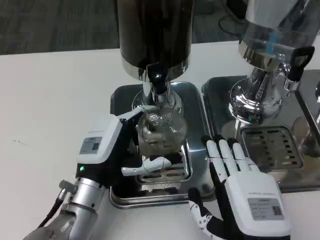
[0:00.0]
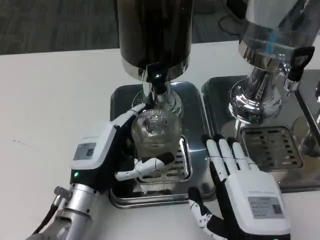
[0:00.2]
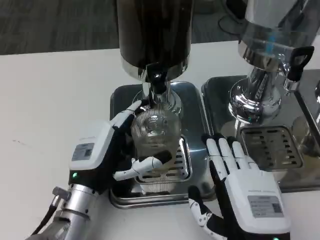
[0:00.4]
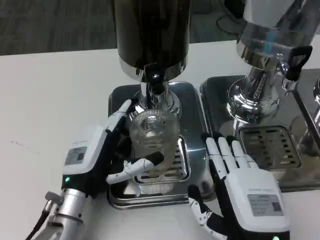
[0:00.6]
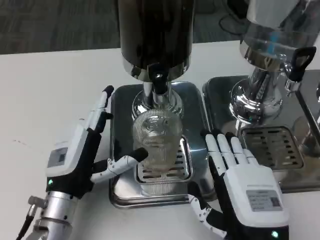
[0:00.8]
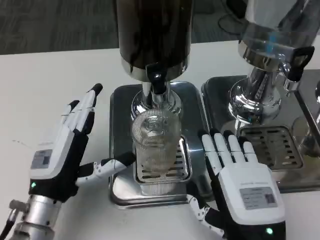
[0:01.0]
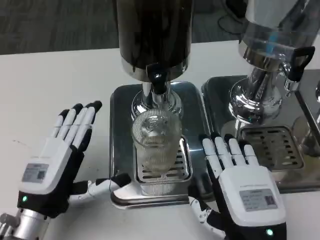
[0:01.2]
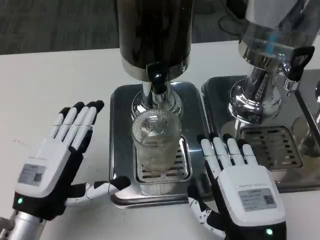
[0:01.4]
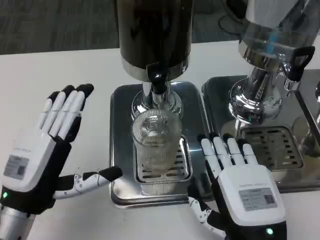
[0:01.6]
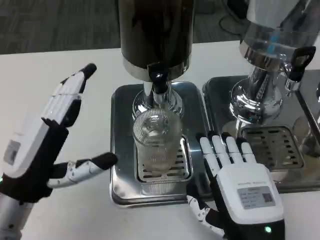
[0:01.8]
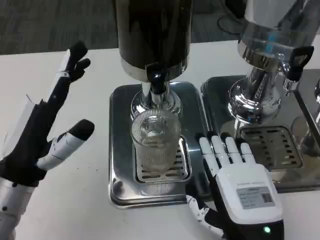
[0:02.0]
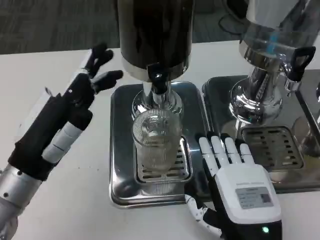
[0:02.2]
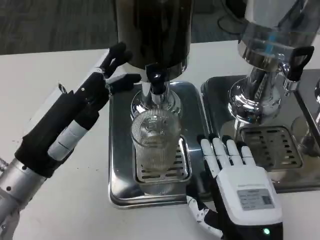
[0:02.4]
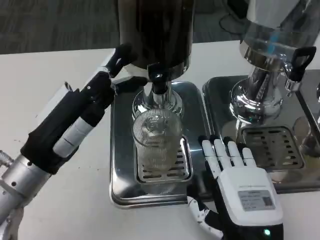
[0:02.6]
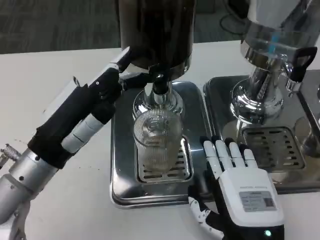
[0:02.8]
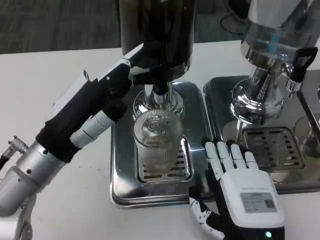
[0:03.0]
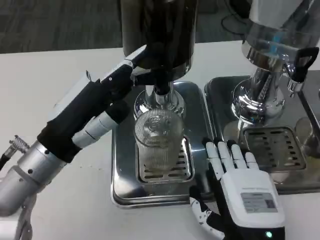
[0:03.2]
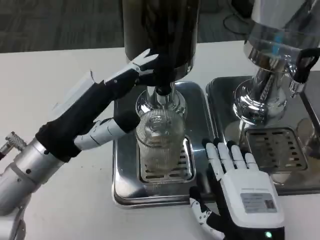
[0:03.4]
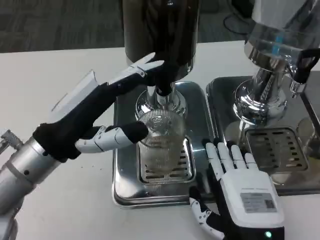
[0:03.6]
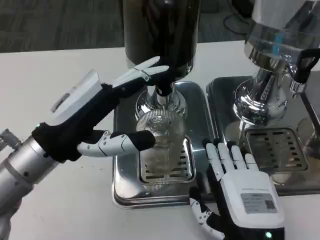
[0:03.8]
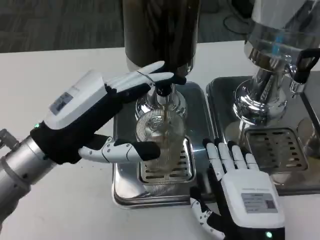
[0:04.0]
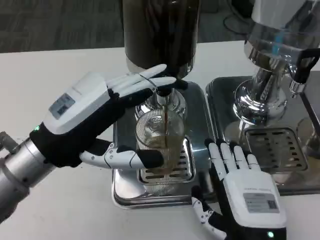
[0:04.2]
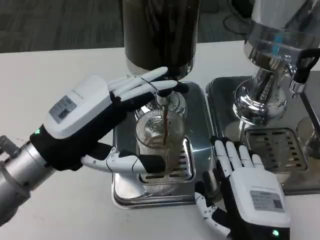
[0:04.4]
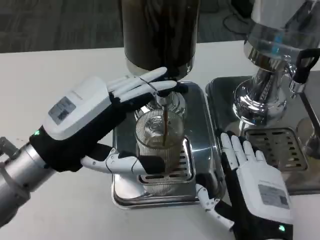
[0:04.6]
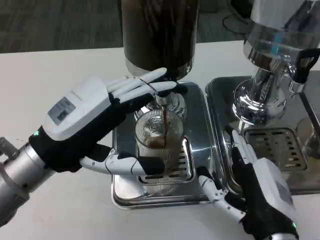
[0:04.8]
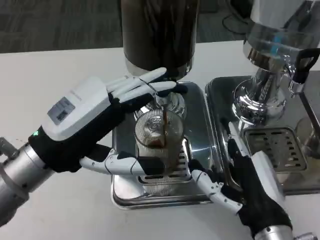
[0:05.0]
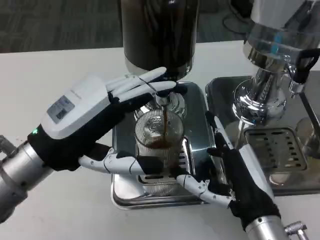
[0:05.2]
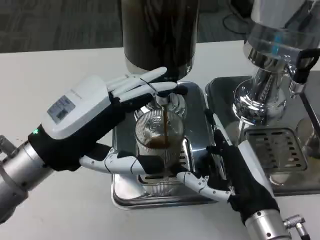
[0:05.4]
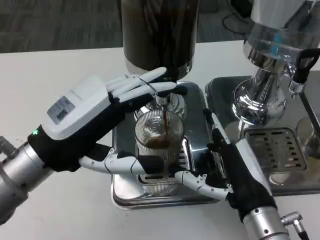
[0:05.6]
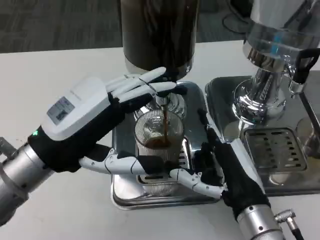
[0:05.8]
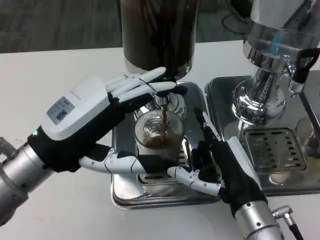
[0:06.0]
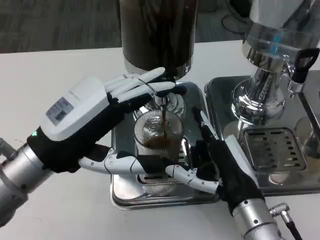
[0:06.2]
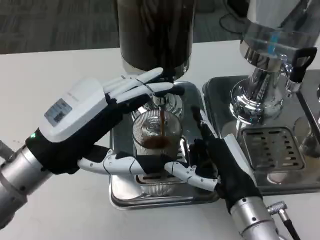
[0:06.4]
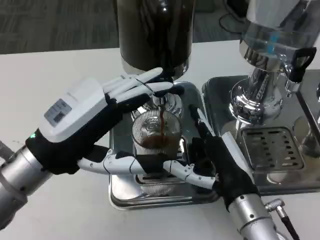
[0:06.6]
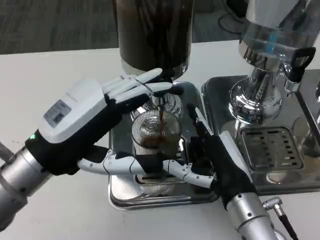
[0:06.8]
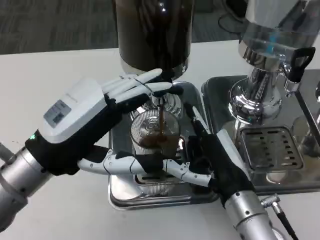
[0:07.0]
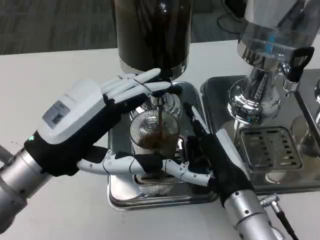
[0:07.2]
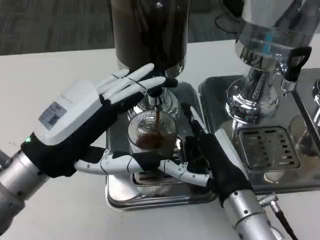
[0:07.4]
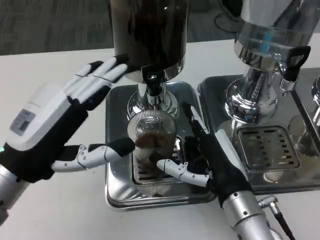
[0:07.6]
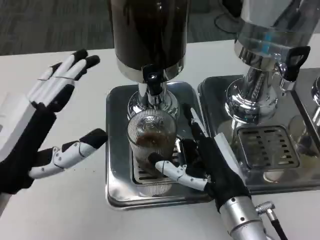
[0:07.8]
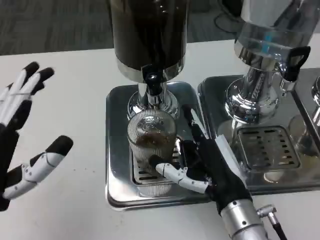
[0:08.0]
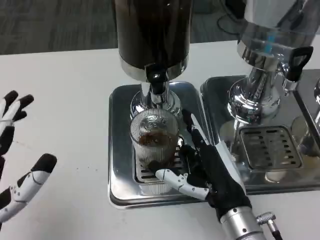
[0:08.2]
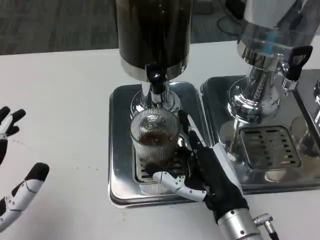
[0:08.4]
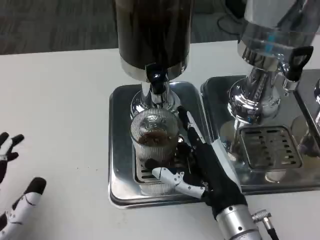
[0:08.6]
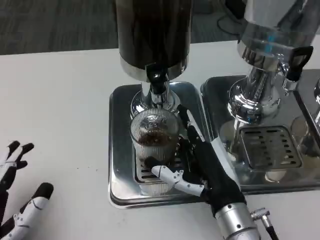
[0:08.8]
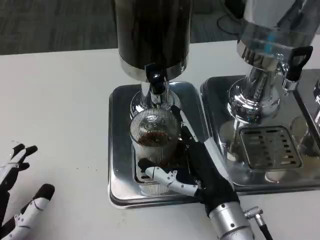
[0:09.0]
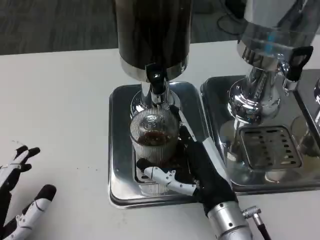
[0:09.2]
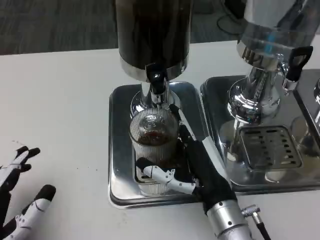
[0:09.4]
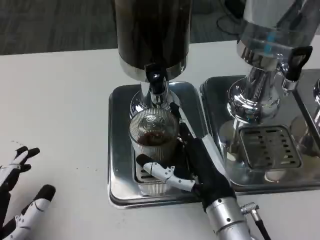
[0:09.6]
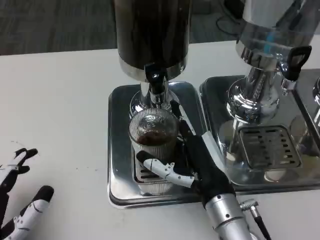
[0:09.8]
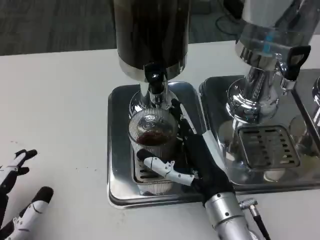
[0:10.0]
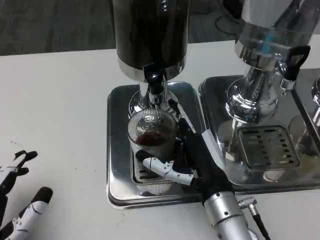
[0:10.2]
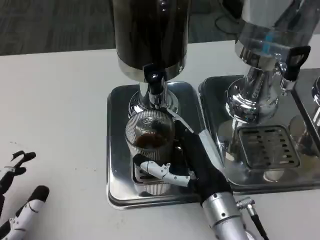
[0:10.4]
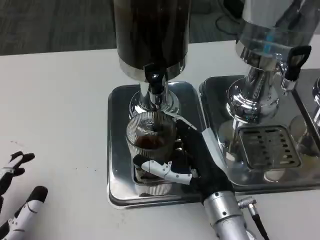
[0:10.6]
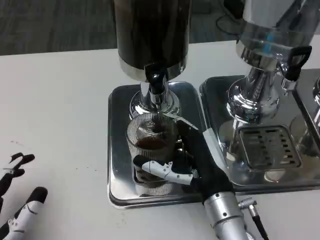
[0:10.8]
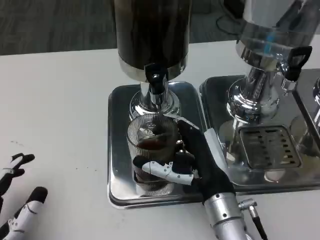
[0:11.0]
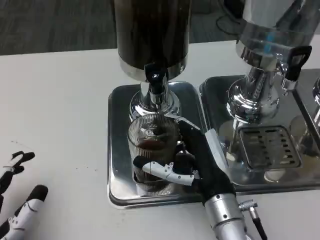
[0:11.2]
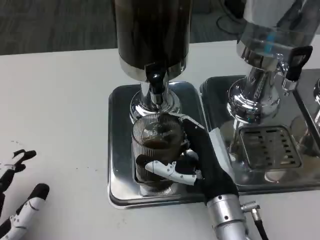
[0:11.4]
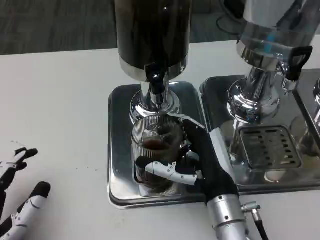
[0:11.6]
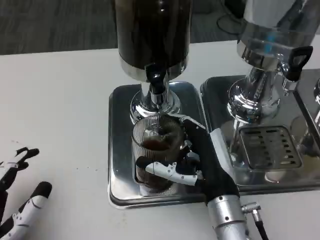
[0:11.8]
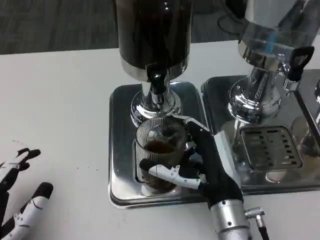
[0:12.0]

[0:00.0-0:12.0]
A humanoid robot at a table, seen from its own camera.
Task of the whole recording: Grasp the cup under the faucet to collect the drink, then remove the cup.
0:00.0 to 0:01.6: The left hand heads to the left and backward, covering about 10 cm.
0:01.6 to 0:03.0: The left hand is displaced upward and forward by approximately 10 cm.
0:04.4 to 0:06.0: The right hand is displaced forward by some 5 cm.
0:07.6 to 0:09.0: The left hand goes approximately 15 cm downward and backward.
0:09.0 to 0:10.4: The hands stay close to where they were, moving slightly.

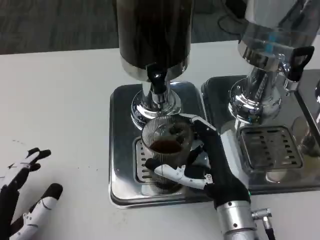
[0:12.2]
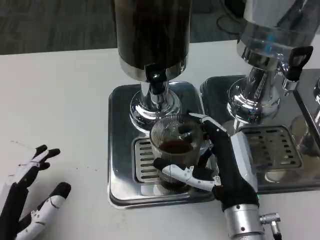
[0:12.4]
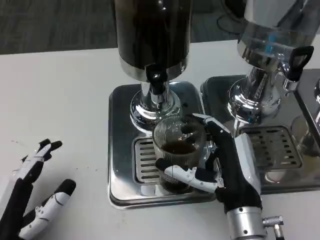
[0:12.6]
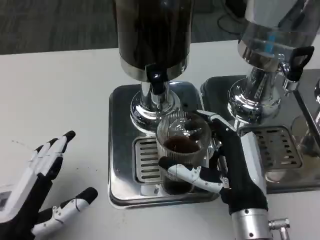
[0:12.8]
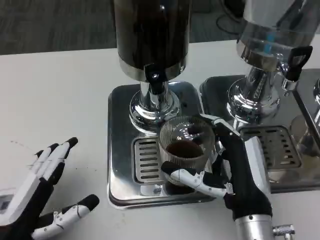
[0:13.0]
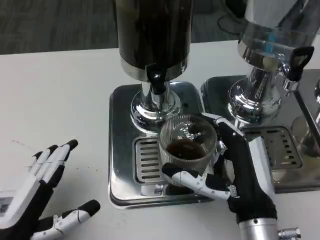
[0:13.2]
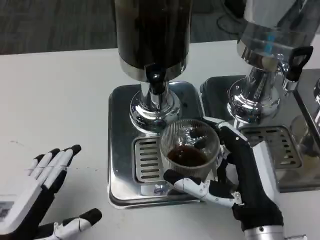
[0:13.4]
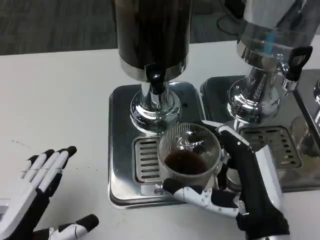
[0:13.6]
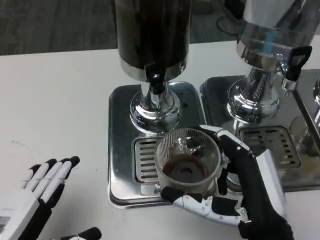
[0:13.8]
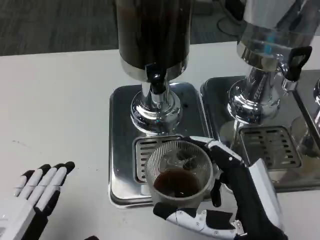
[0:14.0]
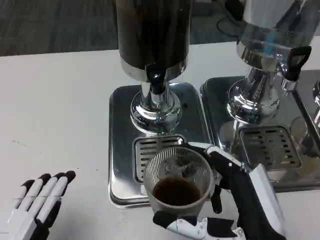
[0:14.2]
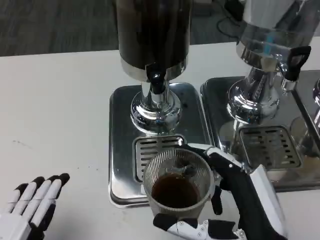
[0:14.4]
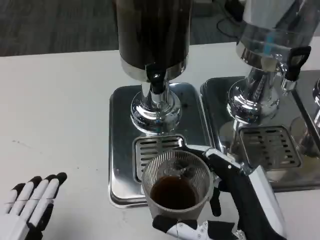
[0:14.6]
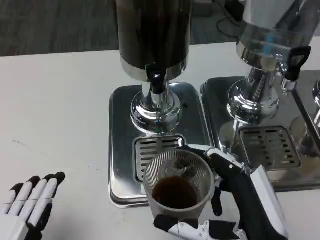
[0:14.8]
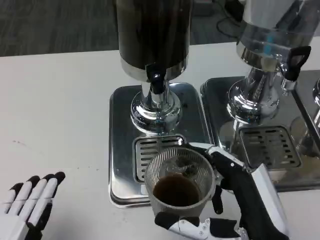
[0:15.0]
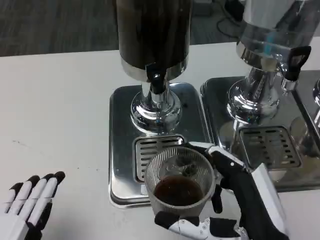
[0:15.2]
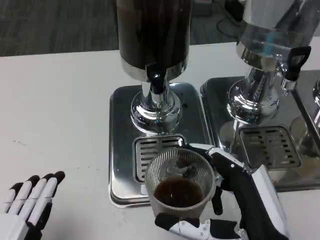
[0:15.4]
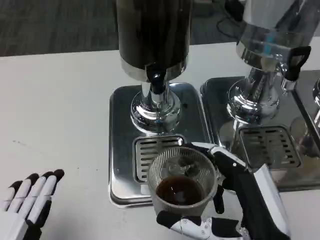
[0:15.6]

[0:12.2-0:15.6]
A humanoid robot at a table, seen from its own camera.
Task of the whole recording: Grasp the cup under the faucet to collect the drink, then remove the cup.
0:12.2 to 0:13.8: The right hand is displaced backward by roughly 5 cm; the left hand moves some 5 cm.
